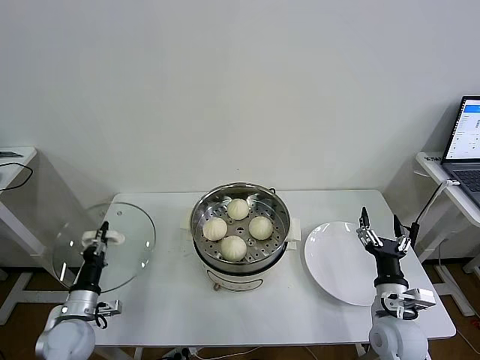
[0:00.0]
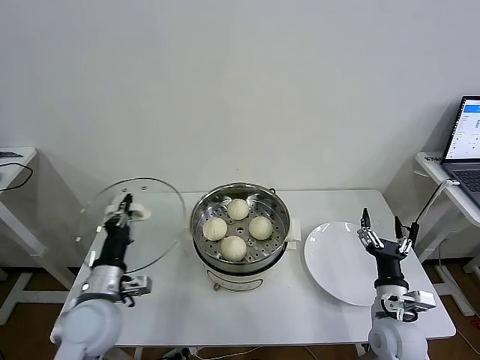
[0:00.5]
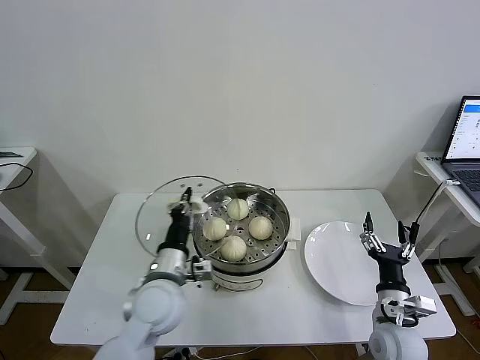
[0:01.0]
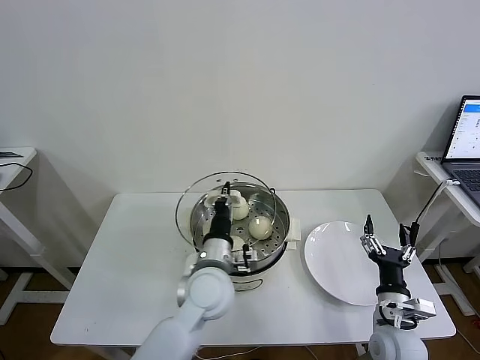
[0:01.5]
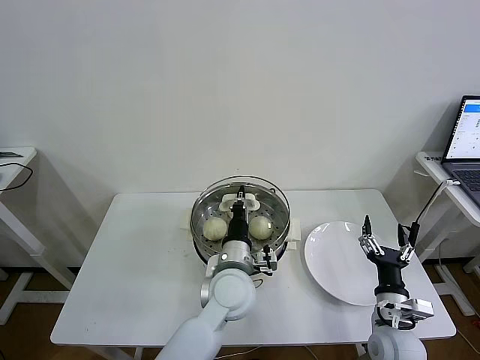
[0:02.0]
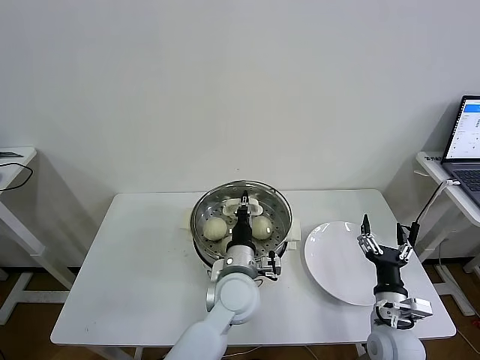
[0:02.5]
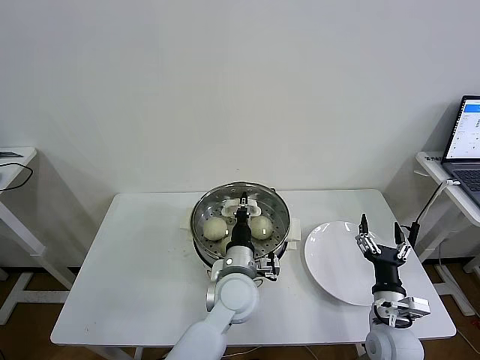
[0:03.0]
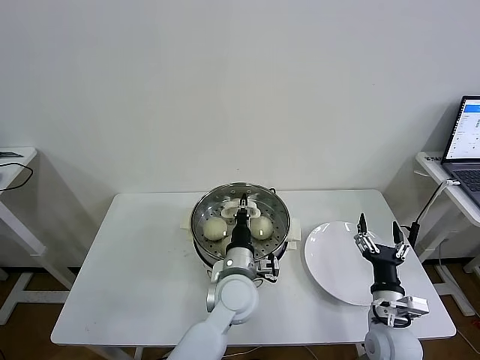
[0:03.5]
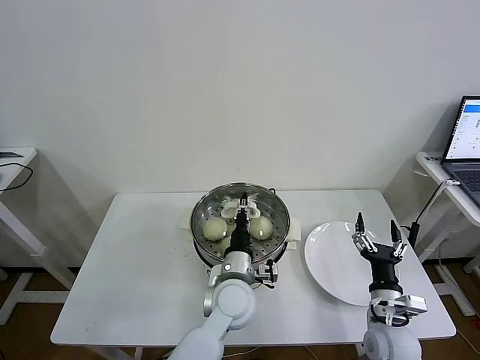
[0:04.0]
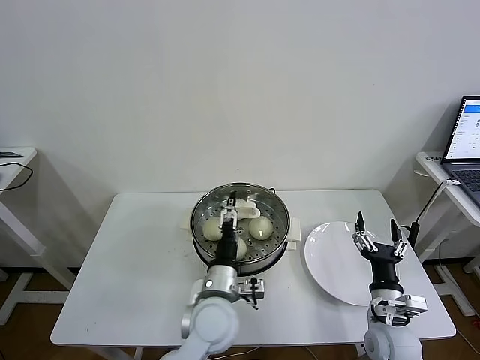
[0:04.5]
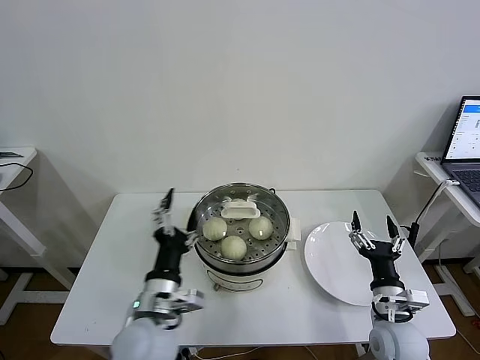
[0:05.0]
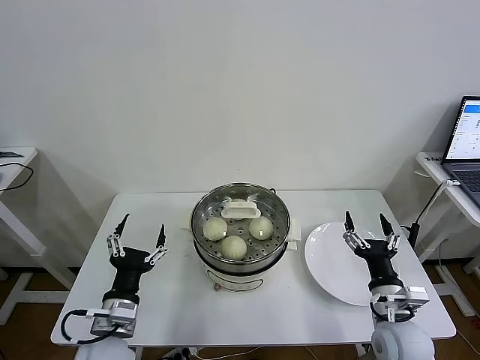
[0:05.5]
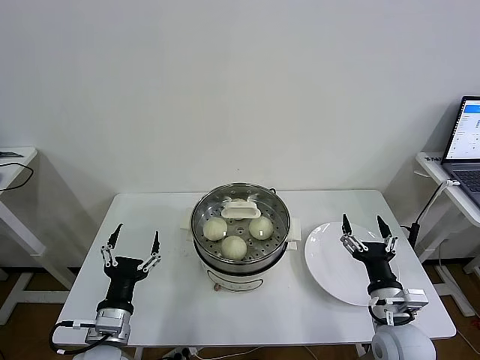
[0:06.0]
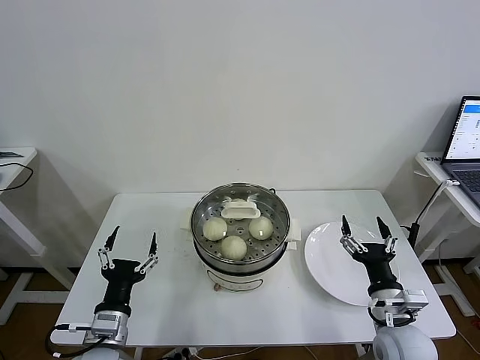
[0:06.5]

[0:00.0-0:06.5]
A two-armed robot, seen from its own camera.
Task of the whole recording: take steamed baozi put them in steamer then cover it.
Step, 0:00.0 to 0:04.5: Place the pot lid on the steamer with left gripper.
0:00.0 to 0:02.0: The left gripper is displaced to the right by about 35 cm.
0:02.0 to 0:04.5: The left gripper shifts by approximately 5 cm, and opens.
0:04.5 to 0:06.5: The left gripper moves to the left and backward, about 25 cm. The right gripper changes place by roughly 5 cm.

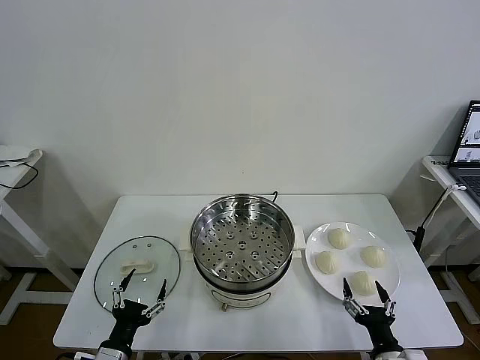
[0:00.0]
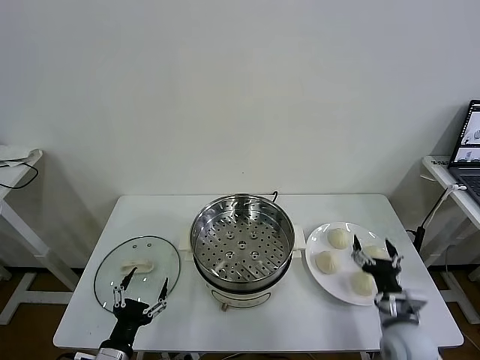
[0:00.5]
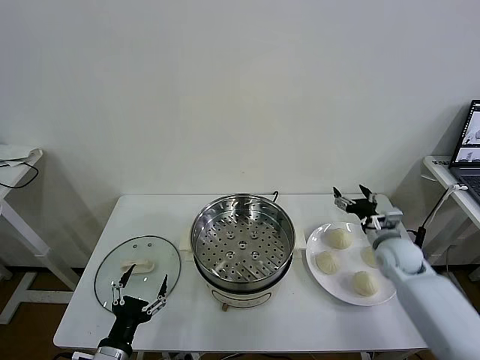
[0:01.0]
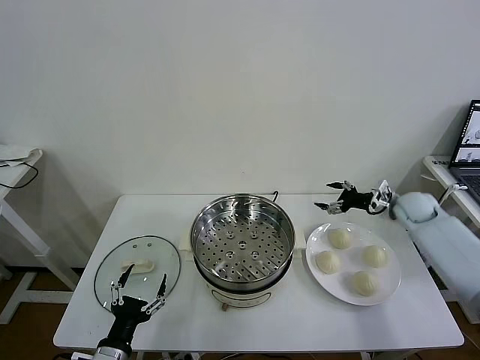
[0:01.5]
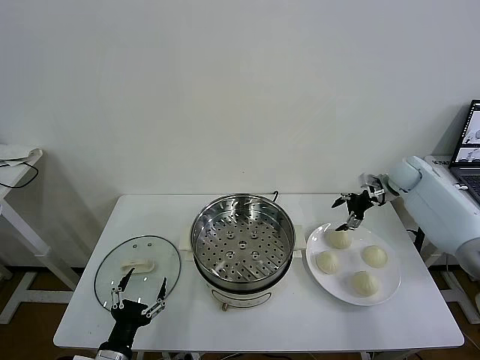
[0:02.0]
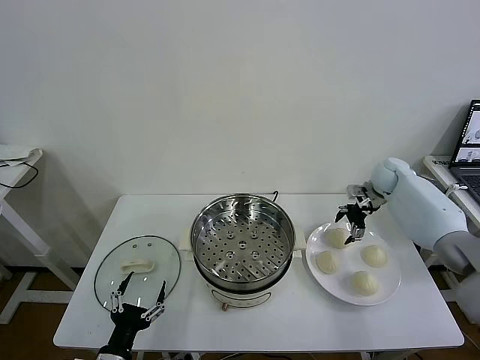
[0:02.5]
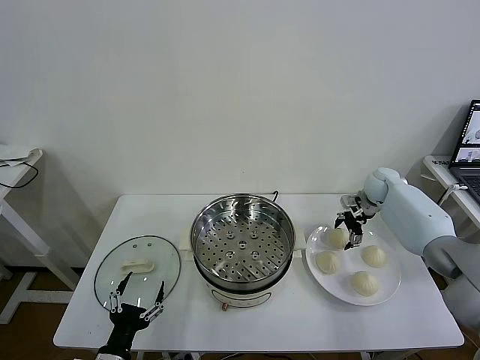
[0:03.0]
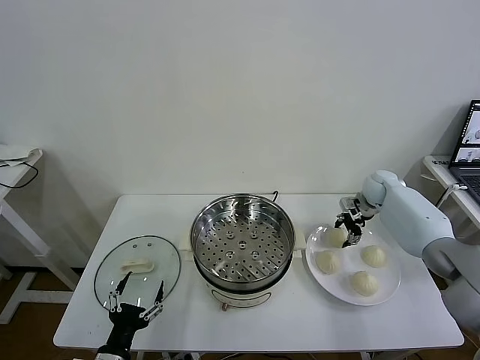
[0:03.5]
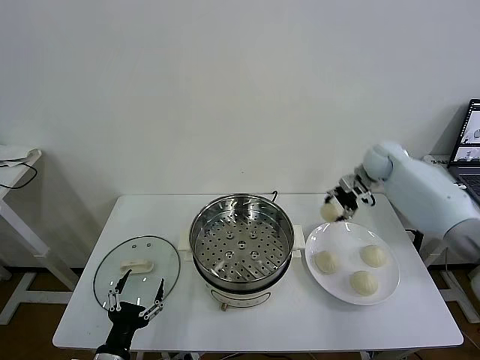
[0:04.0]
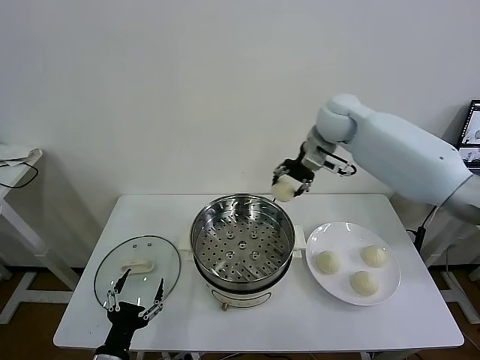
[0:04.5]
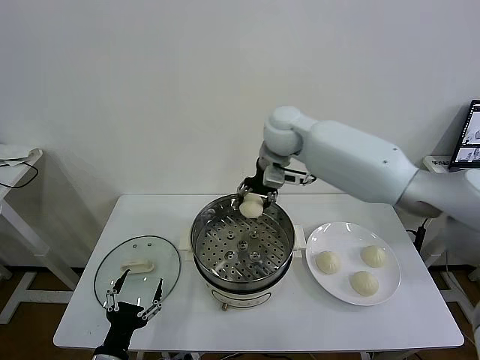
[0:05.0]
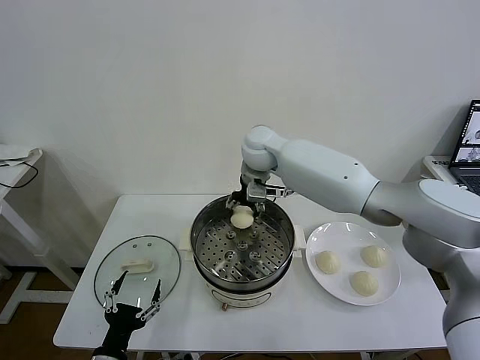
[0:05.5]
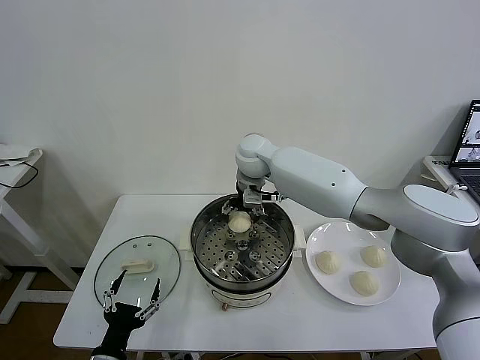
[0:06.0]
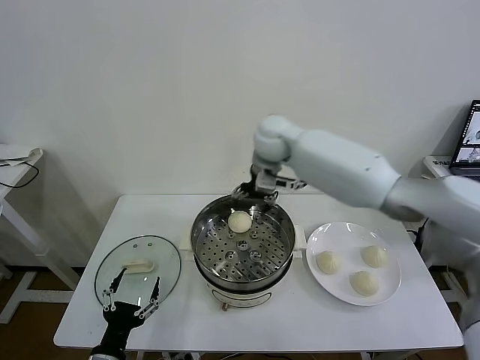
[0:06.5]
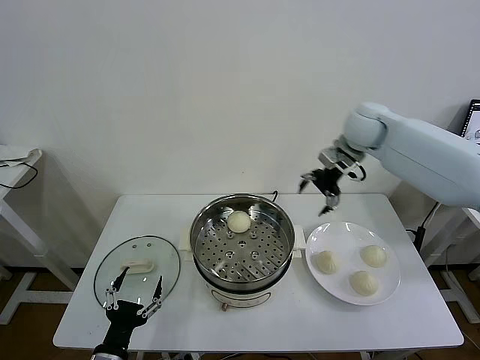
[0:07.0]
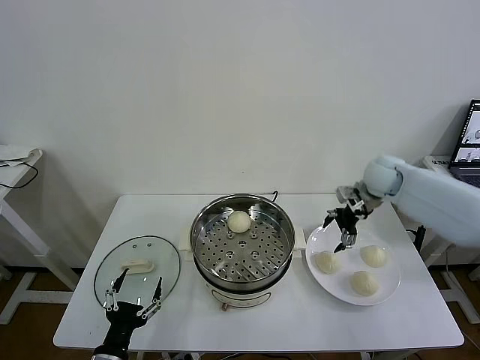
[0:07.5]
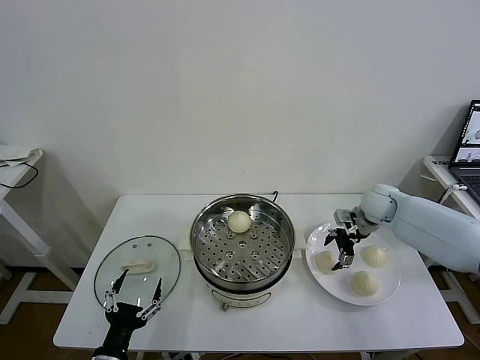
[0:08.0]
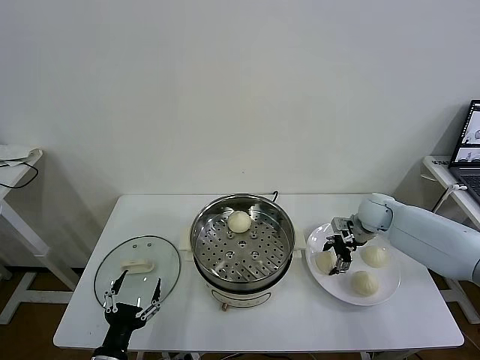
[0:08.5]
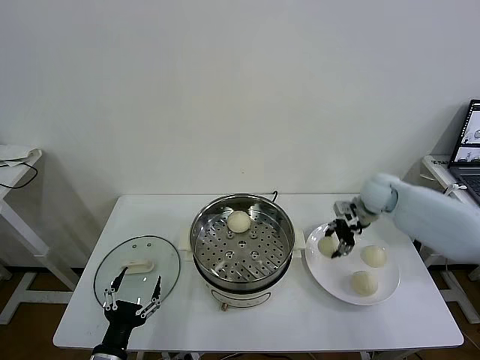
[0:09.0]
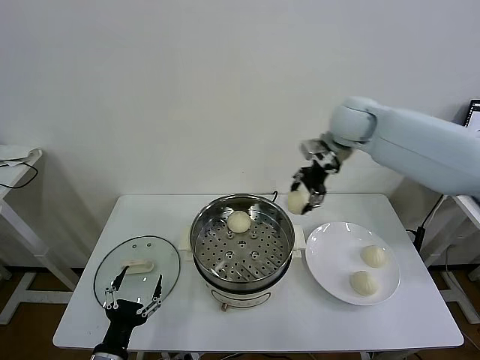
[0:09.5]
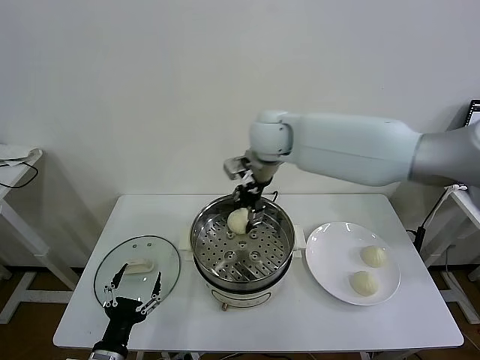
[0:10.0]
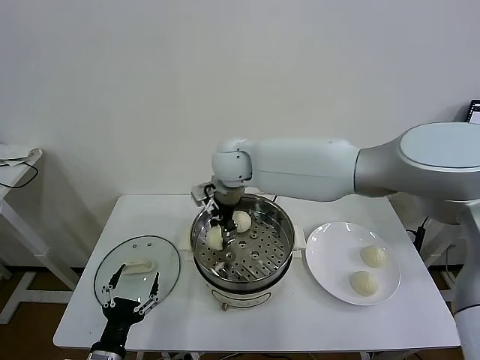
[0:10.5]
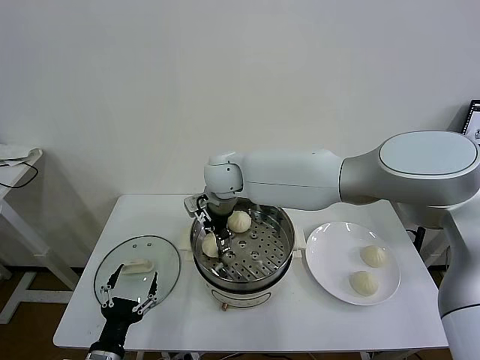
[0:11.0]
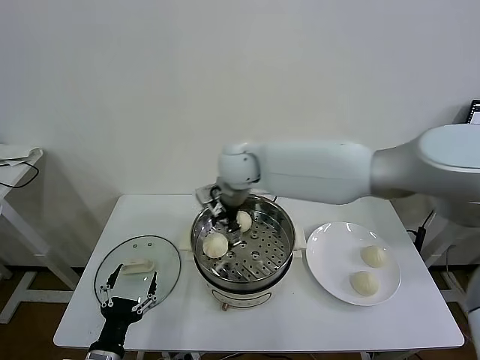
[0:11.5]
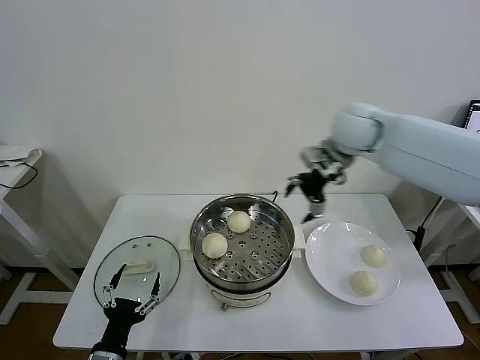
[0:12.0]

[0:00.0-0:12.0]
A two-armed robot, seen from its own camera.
Task of the whole recording: take steamed baozi put them in steamer then cover it.
Step, 0:00.0 to 0:03.5: Grasp the baozi in the plate with right gripper.
Step, 0:04.0 to 0:06.0: Place the baozi on the steamer with right gripper.
Step, 0:06.5 to 0:08.5: Grasp the baozi in the plate with right gripper.
Step, 0:09.0 to 0:11.0: Place the baozi on the steamer with right gripper.
0:02.0 to 0:04.0: The right gripper goes about 10 cm to the left and upward, and closes up.
0:04.0 to 0:06.0: The right gripper heads to the left, covering approximately 30 cm, and opens up.
0:06.0 to 0:08.0: The right gripper heads to the right and downward, covering approximately 35 cm.
0:08.0 to 0:10.0: The right gripper is displaced to the left and upward by about 40 cm, and closes up.
0:10.0 to 0:12.0: The right gripper heads to the right, covering roughly 25 cm, and opens its fingers.

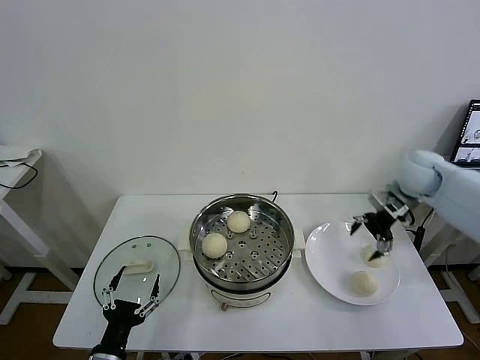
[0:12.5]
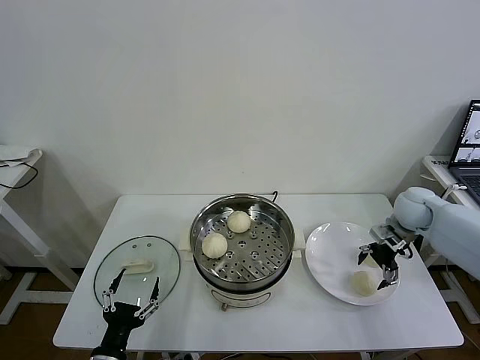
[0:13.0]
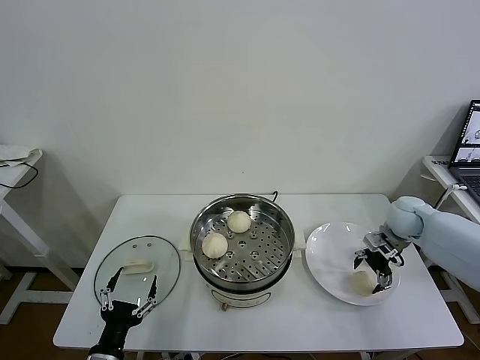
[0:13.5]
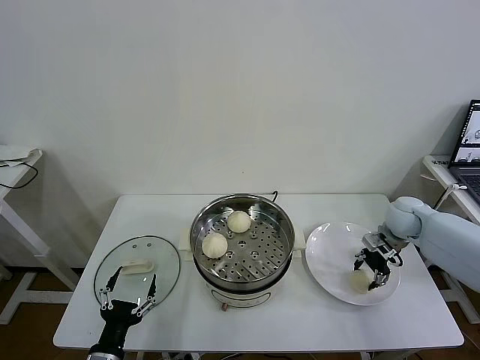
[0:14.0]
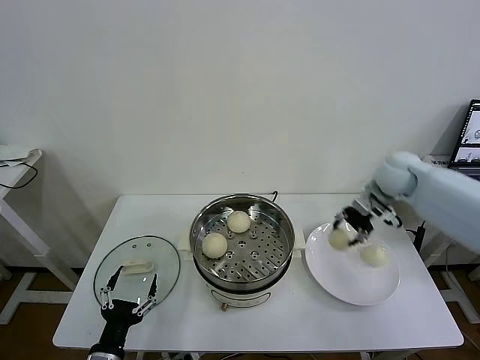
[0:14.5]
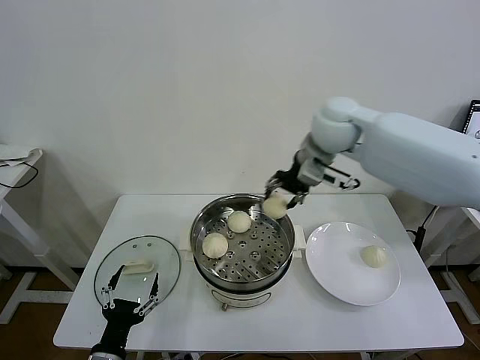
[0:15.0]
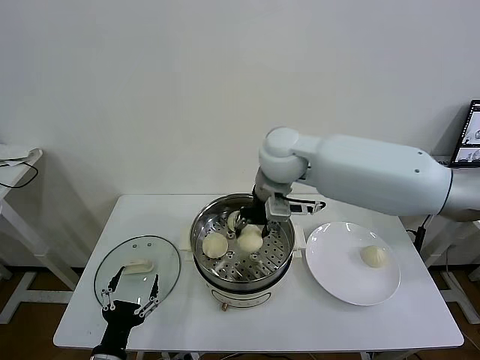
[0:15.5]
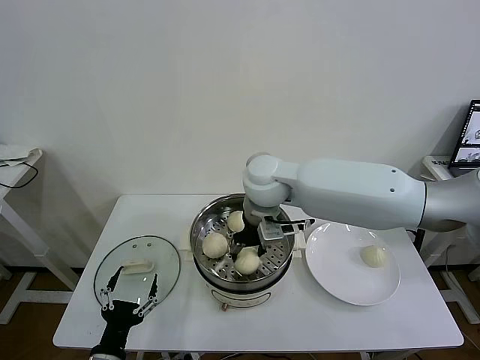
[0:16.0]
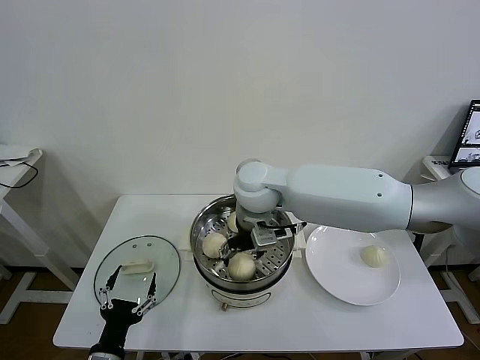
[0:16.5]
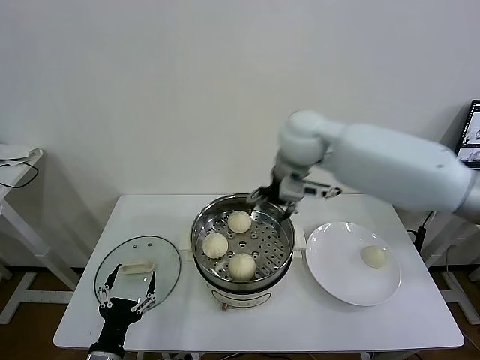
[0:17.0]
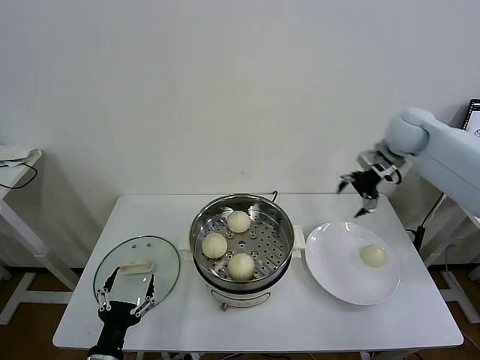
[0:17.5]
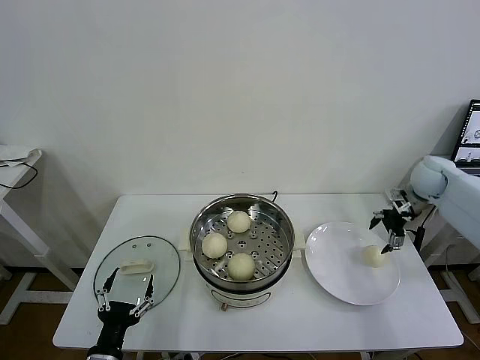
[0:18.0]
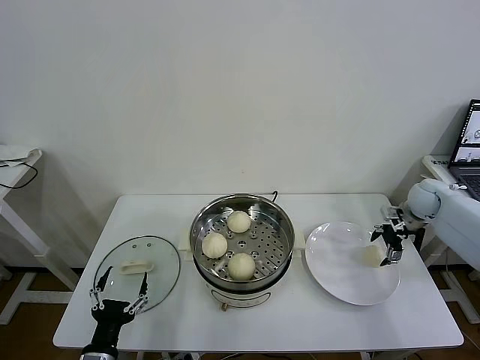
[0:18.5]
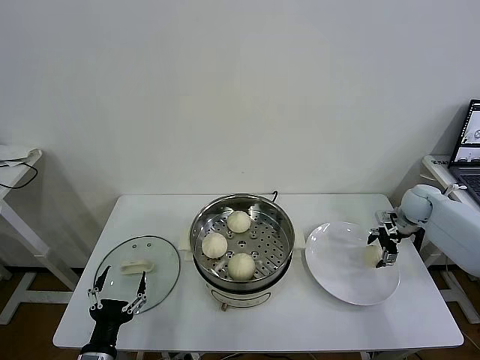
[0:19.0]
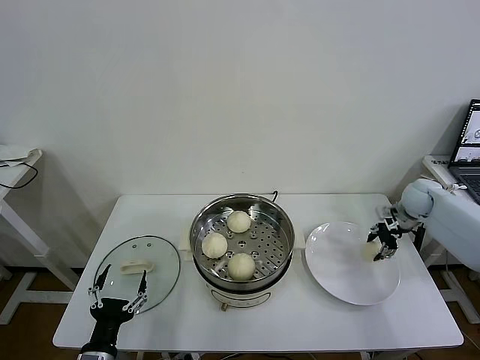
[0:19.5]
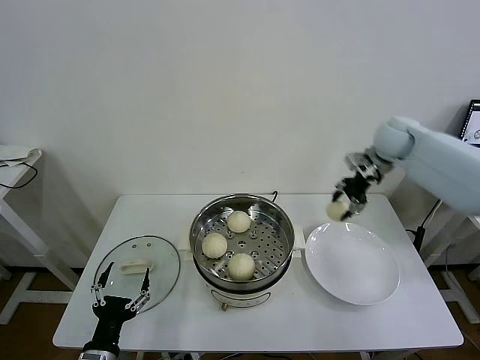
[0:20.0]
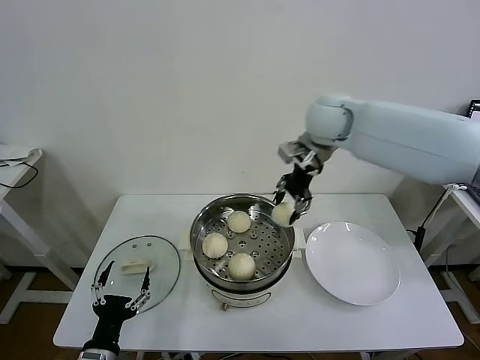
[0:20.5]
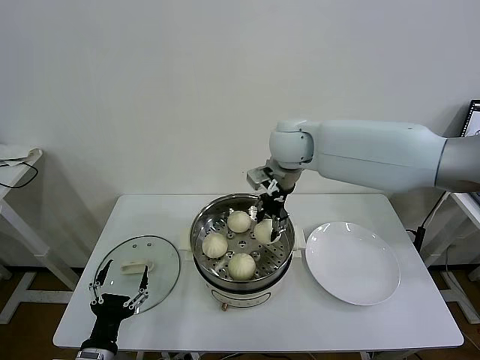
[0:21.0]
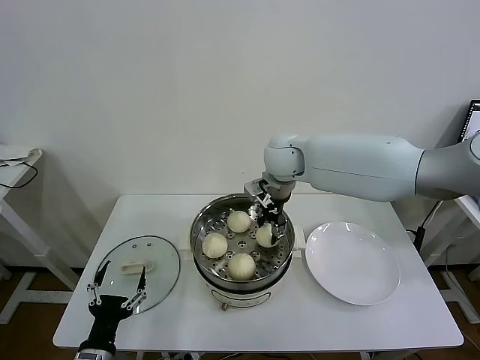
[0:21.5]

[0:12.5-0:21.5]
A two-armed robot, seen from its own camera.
Task of the whole recording: take steamed baozi put them in steamer then cover it.
Step, 0:12.5 to 0:14.0: Grasp the baozi in the plate with right gripper.
Step, 0:14.5 to 0:16.5: Place the baozi on the steamer with right gripper.
Step, 0:17.0 to 0:19.5: Grasp the baozi in the plate with right gripper.
0:12.5 to 0:14.5: The right gripper travels to the left by some 5 cm, travels downward and back again, approximately 10 cm each way, and closes its fingers.
0:14.5 to 0:17.0: The right gripper travels to the left and upward by about 20 cm, and opens its fingers.
0:17.0 to 0:19.5: The right gripper moves to the right and downward, approximately 40 cm, and closes its fingers.
0:19.5 to 0:21.5: The right gripper moves to the left, some 35 cm.
